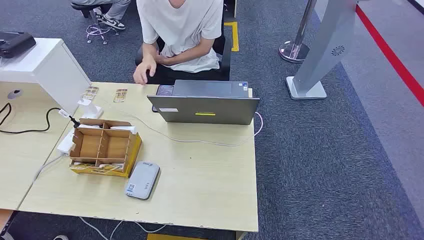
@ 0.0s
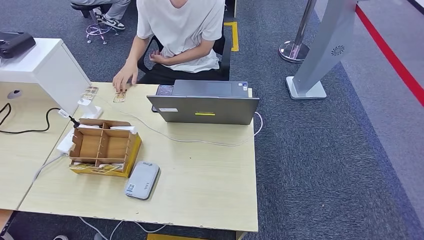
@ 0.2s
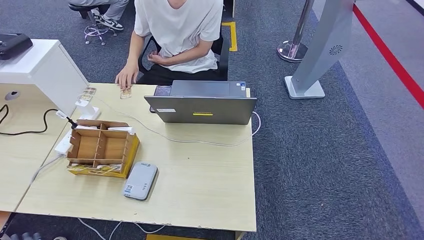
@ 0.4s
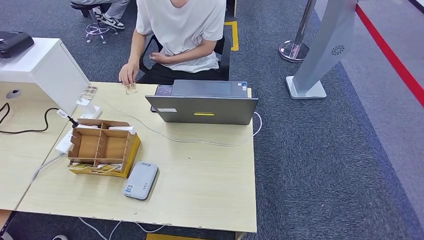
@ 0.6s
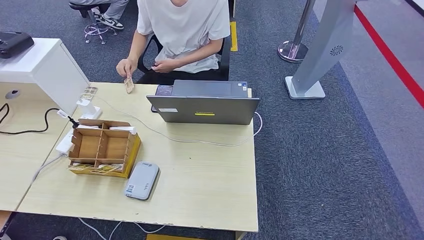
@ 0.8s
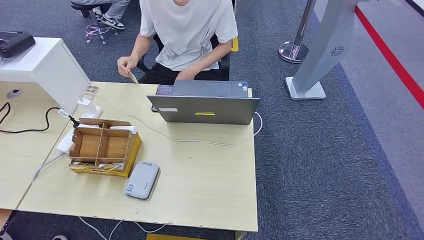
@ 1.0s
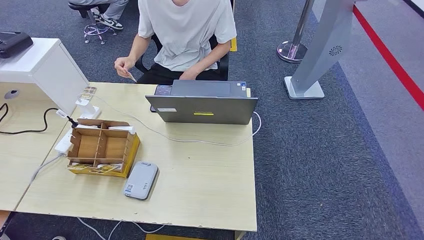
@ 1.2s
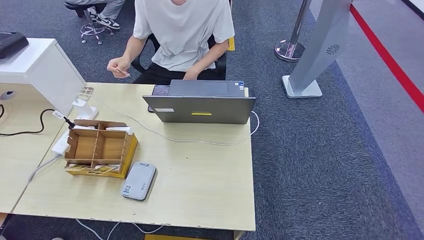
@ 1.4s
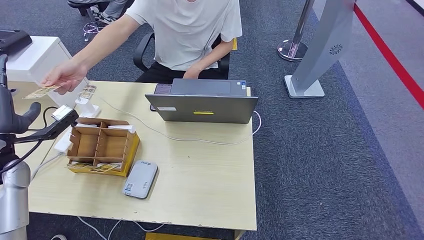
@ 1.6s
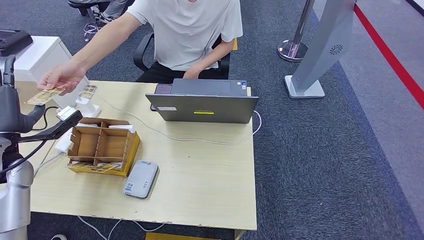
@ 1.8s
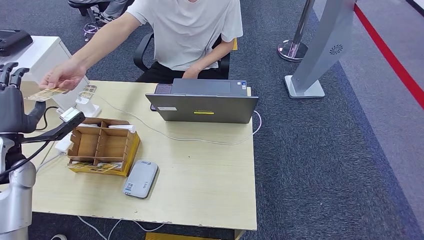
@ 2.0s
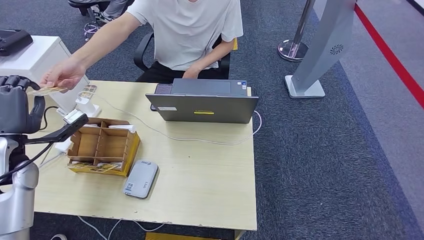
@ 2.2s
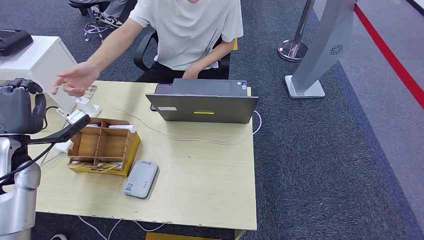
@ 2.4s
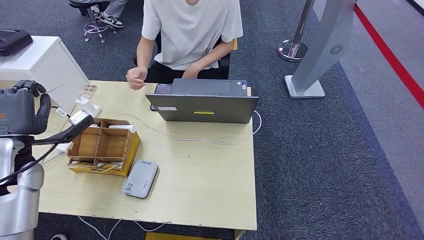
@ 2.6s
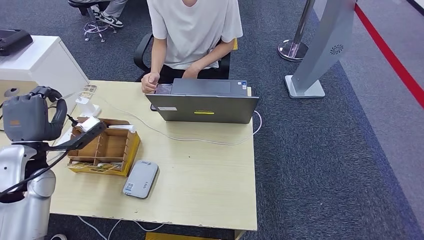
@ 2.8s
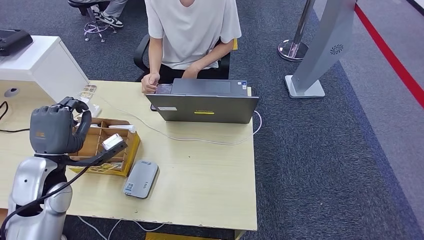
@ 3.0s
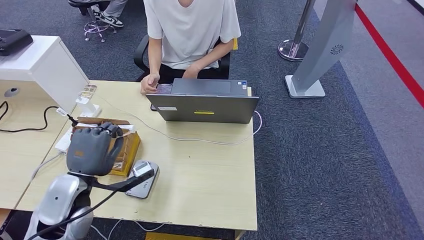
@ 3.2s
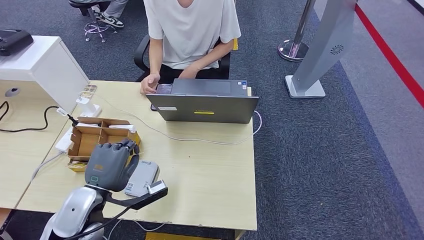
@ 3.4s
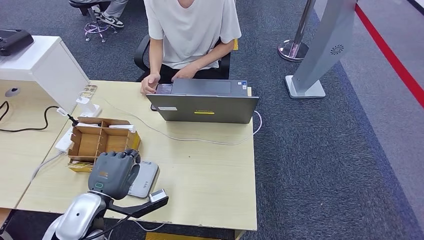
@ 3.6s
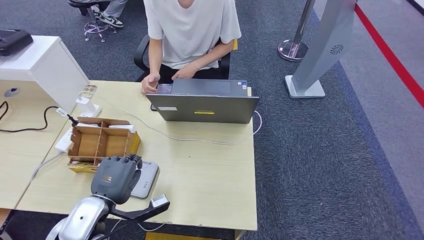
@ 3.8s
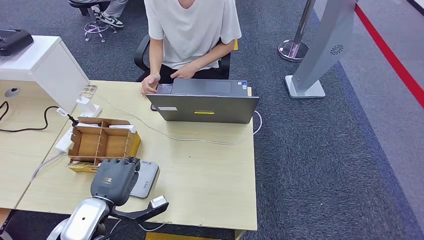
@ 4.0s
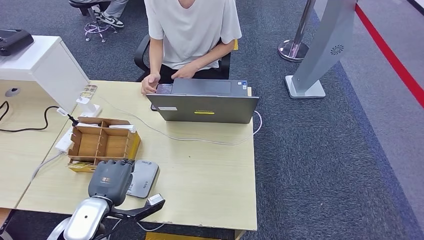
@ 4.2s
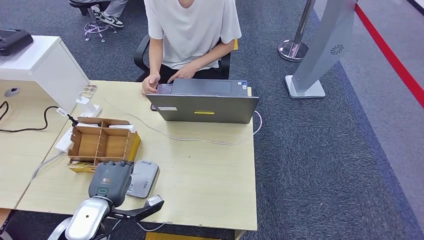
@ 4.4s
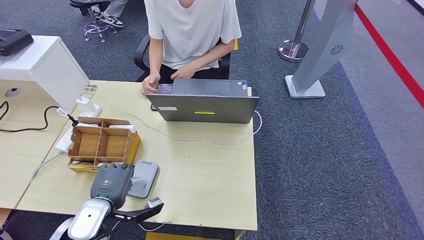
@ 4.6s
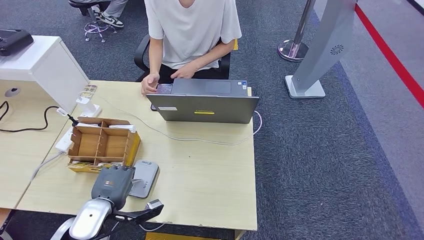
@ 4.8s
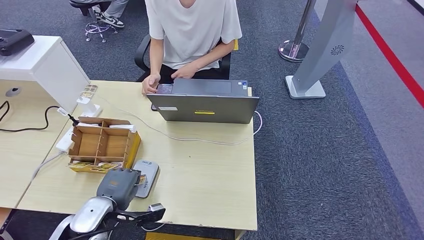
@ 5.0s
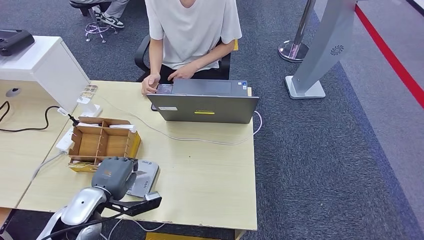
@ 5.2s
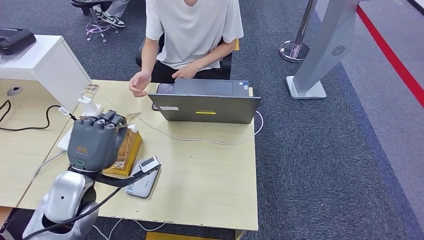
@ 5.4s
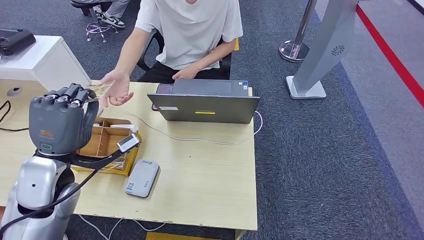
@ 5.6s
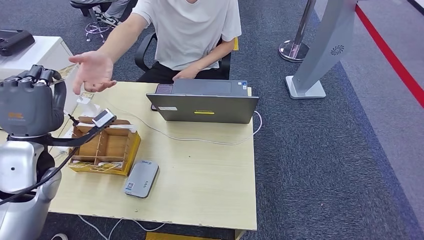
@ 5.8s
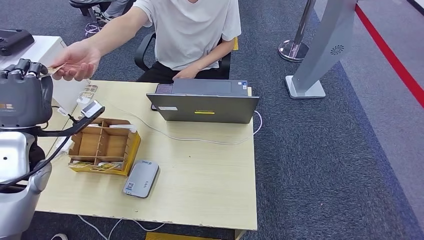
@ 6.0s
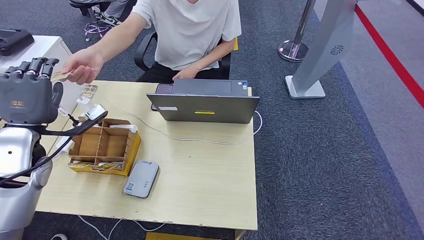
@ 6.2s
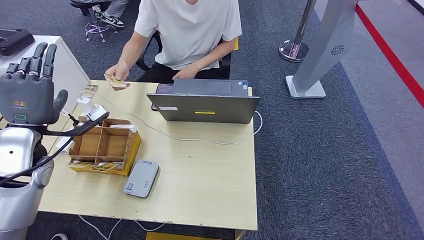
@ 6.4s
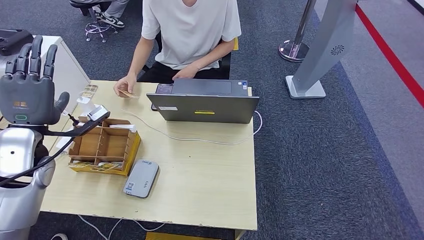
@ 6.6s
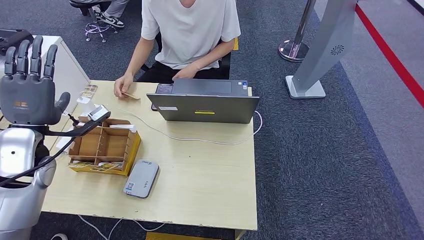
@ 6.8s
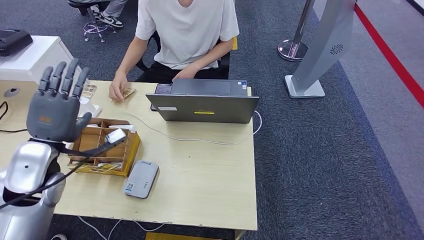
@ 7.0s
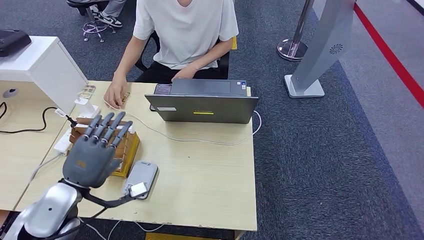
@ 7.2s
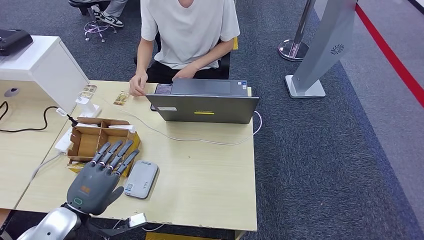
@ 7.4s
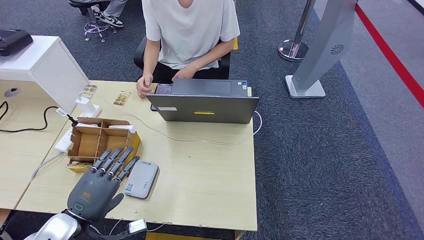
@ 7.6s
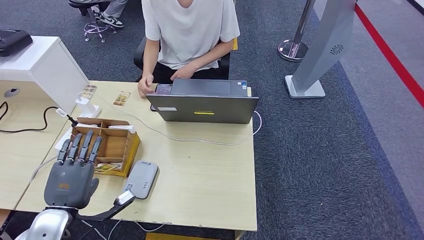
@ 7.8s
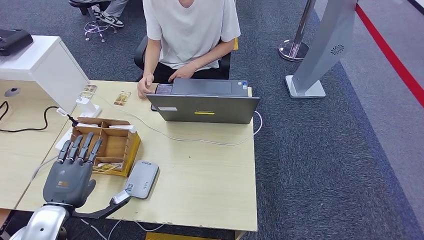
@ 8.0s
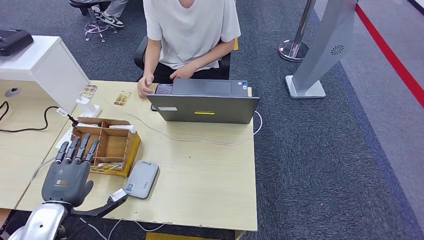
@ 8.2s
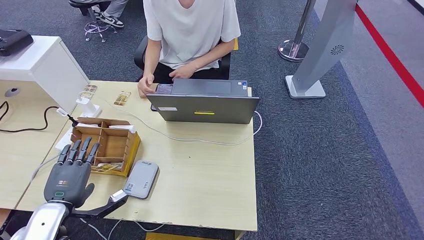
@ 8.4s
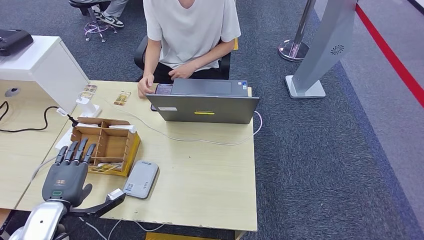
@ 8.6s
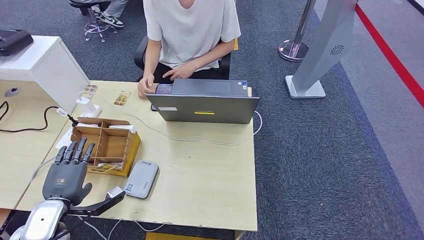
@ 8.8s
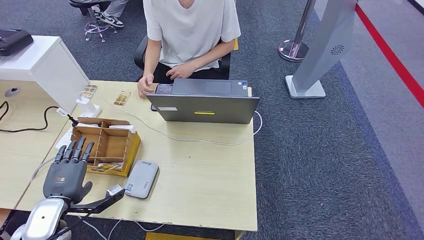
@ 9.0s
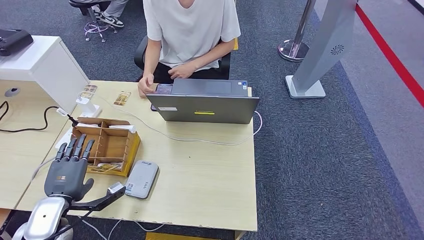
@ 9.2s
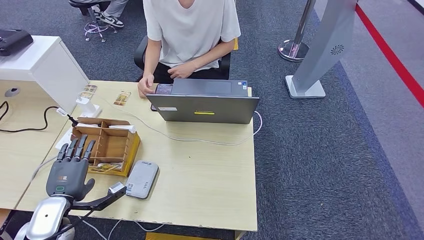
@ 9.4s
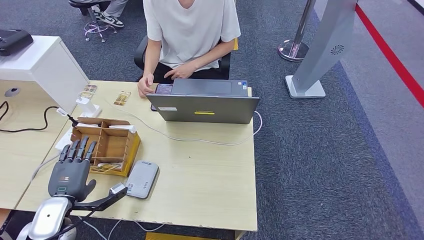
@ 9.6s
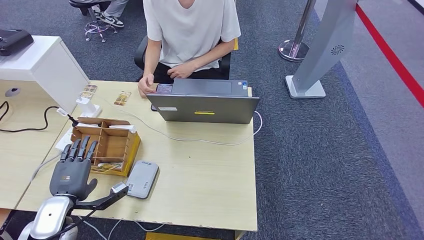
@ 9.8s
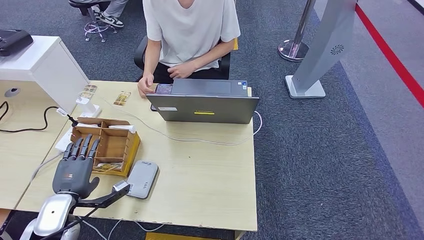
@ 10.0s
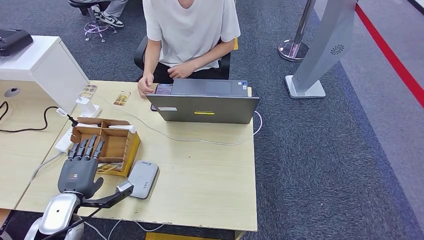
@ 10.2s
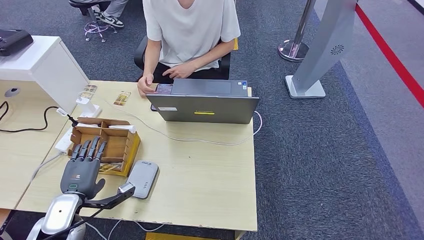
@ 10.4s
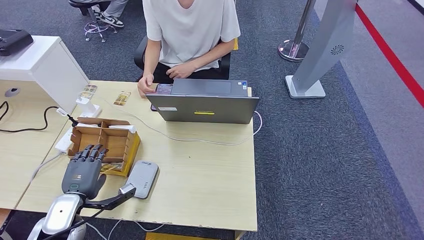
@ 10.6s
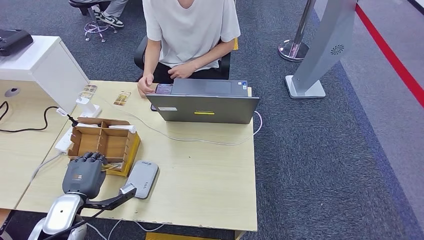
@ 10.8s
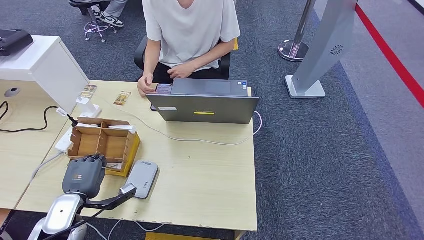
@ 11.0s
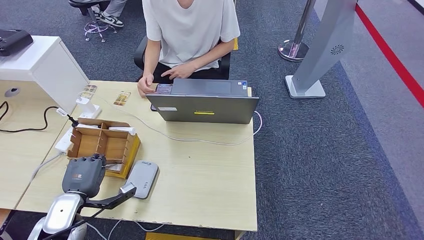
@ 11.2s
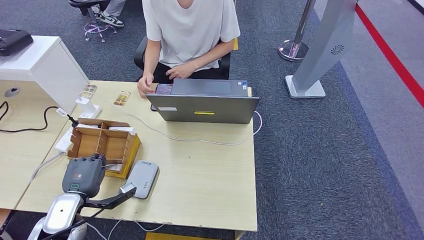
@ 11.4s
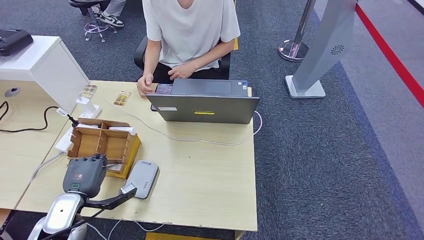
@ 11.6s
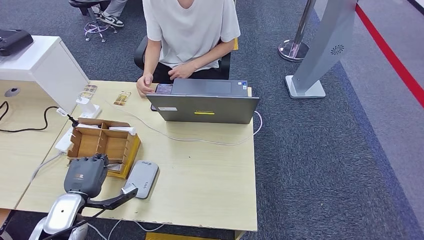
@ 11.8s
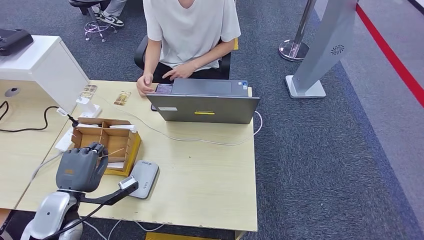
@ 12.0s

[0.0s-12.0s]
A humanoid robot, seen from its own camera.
Step, 0.0s to 2.8s: Take the ID card from the person's hand.
Step, 4.0s to 5.2s: Place the ID card on the card reader.
Step, 5.4s to 7.8s: Hand the ID card to the person.
1.6s to 3.0s: The left hand heads to the right, covering some 10 cm.
3.0s to 4.4s: The left hand moves to the right, downward and backward, approximately 15 cm.
4.4s to 6.0s: The left hand heads upward, to the left and forward, covering approximately 20 cm.
6.0s to 7.6s: The left hand is displaced backward, downward and to the right by approximately 20 cm.
7.6s to 9.0s: The left hand shifts some 5 cm to the left.
9.0s to 12.0s: The hands stay close to where they were, moving slightly.

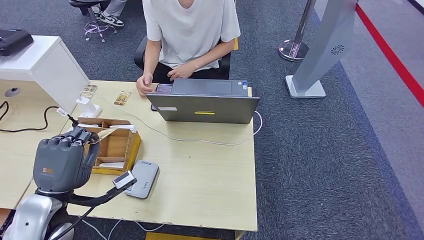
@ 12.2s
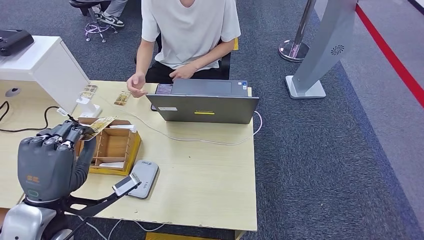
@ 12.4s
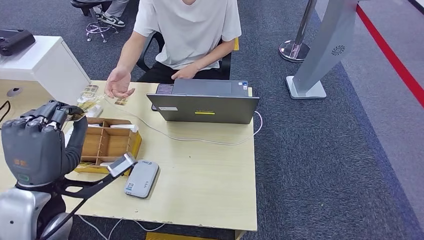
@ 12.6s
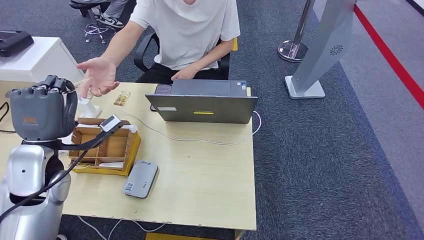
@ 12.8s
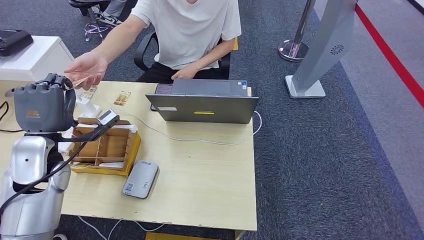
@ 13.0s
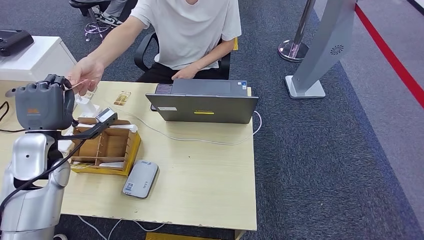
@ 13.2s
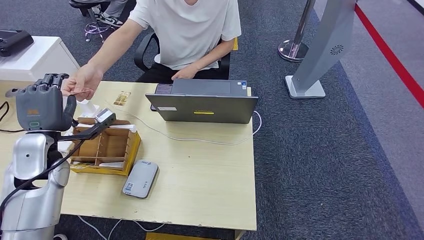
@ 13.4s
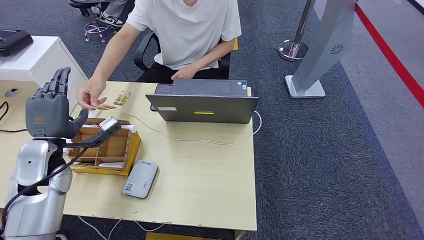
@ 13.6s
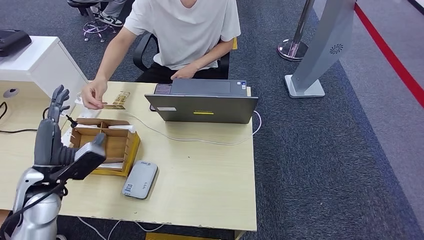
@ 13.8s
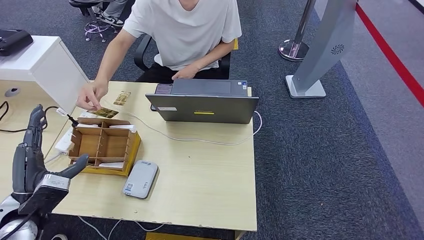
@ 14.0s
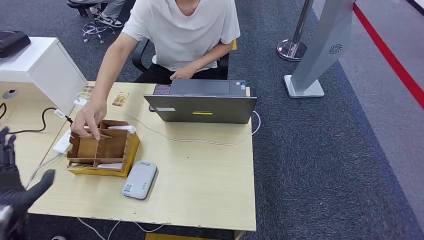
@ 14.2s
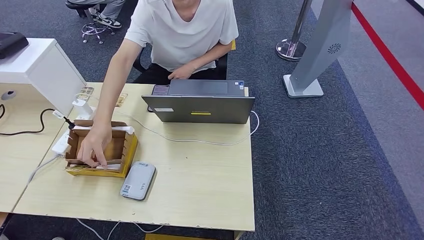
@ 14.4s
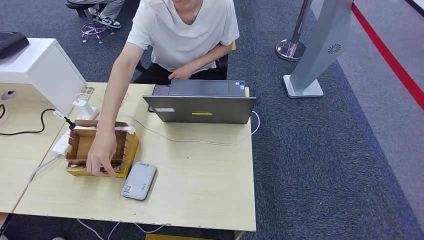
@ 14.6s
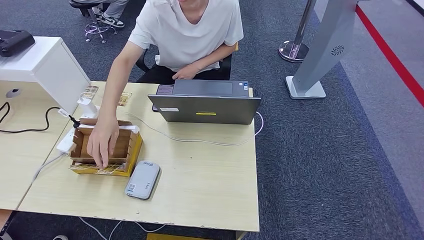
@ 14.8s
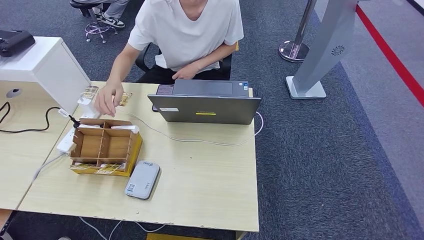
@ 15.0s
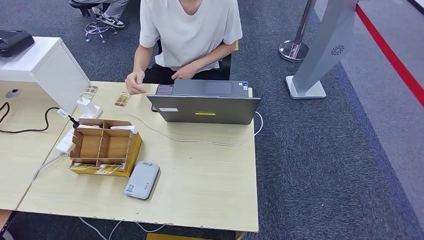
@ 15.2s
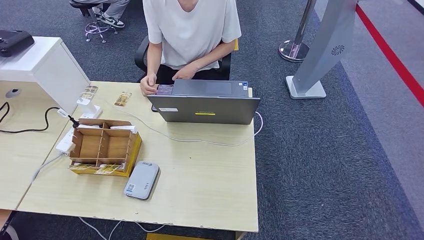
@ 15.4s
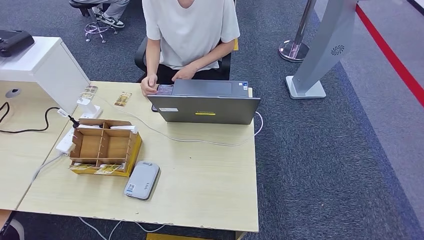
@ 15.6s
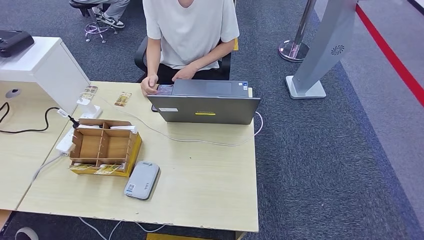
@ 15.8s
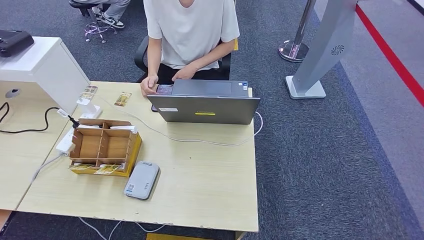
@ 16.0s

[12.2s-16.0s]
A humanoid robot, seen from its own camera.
Step, 12.2s to 16.0s: Hand the room key to the person.
12.2s to 13.4s: The left hand travels forward by approximately 10 cm.
13.4s to 14.8s: The left hand heads downward and backward, covering some 50 cm.
14.8s to 16.0s: The left hand is displaced to the right by approximately 5 cm.

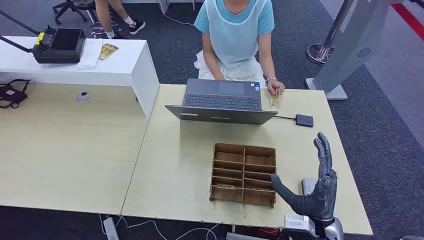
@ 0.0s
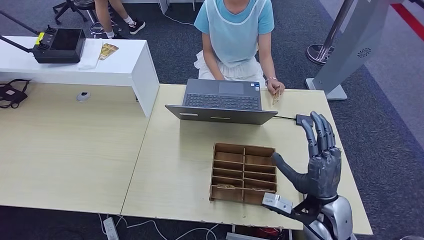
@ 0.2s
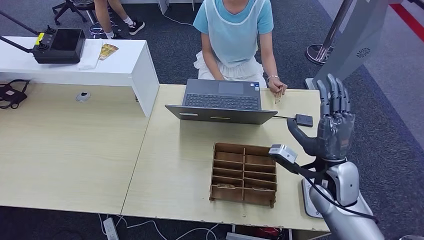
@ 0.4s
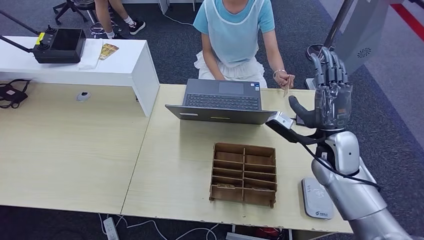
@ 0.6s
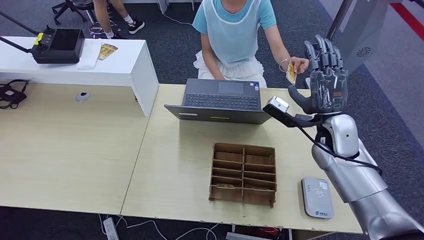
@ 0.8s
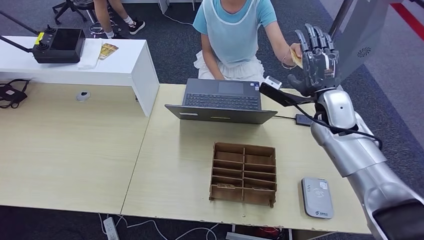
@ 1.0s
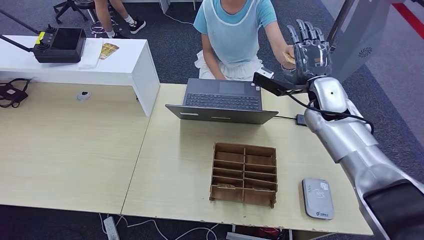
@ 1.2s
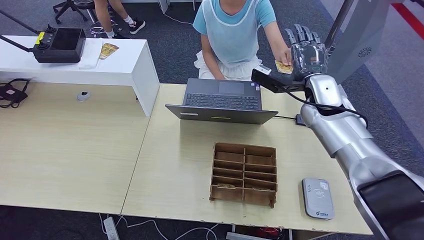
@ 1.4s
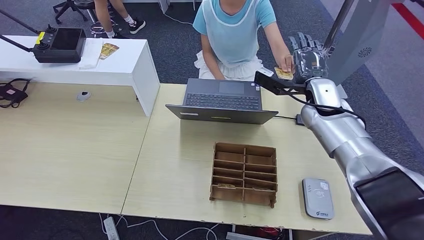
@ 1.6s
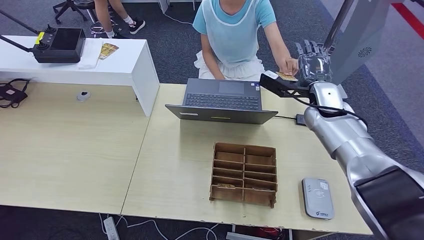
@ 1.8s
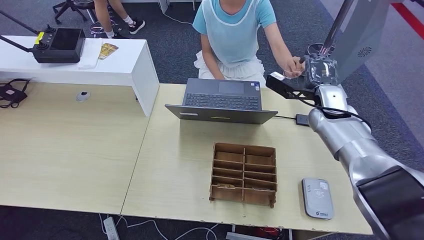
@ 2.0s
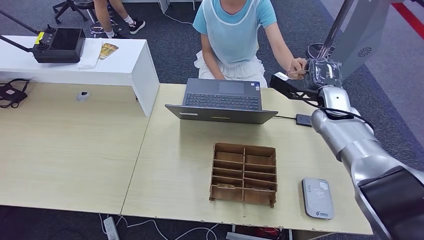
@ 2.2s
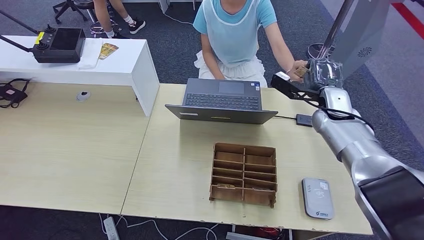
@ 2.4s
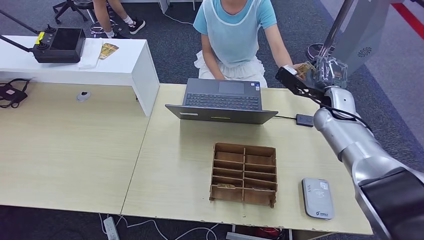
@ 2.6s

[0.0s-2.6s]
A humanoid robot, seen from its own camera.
1.2s to 2.6s: The right hand ends up approximately 5 cm from where it was.
